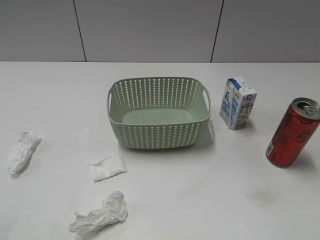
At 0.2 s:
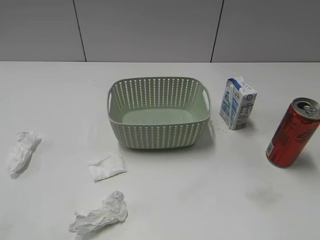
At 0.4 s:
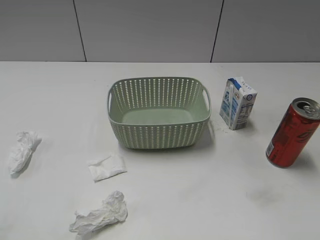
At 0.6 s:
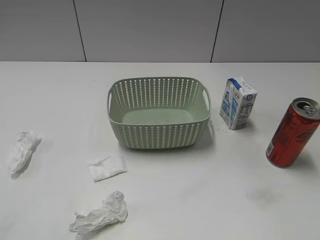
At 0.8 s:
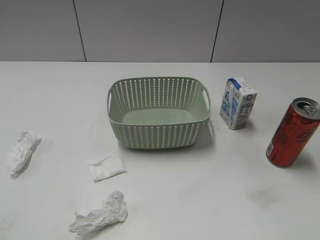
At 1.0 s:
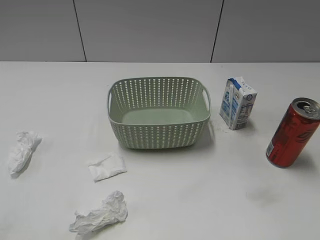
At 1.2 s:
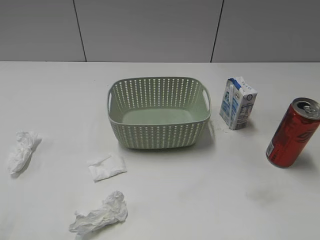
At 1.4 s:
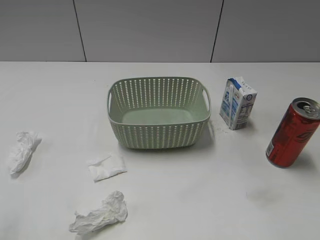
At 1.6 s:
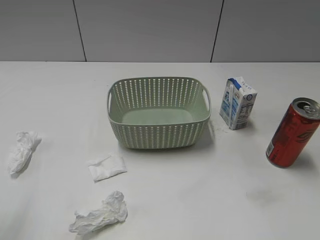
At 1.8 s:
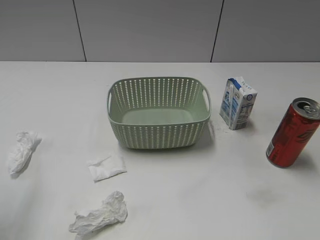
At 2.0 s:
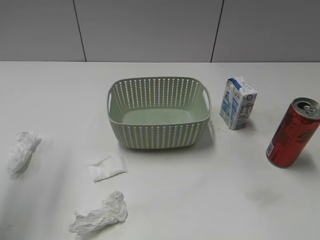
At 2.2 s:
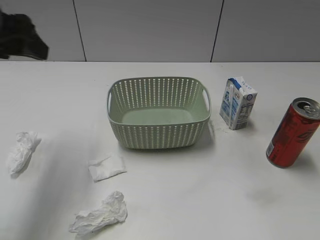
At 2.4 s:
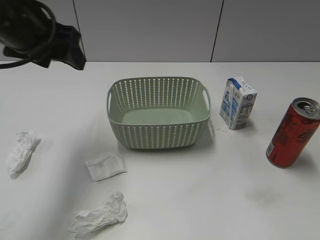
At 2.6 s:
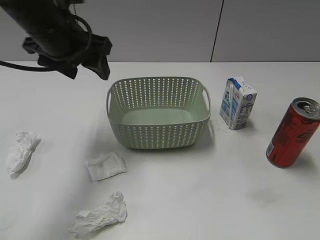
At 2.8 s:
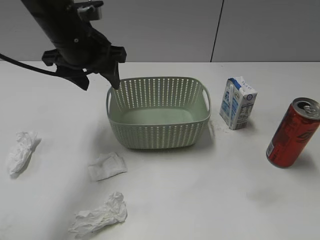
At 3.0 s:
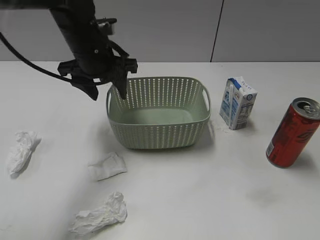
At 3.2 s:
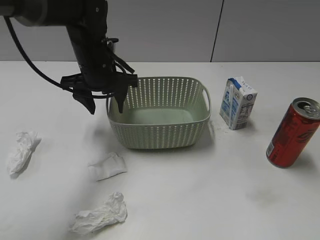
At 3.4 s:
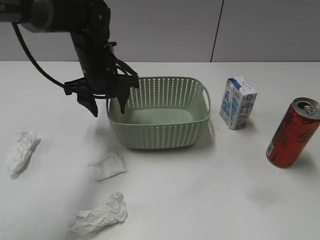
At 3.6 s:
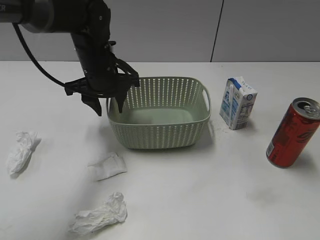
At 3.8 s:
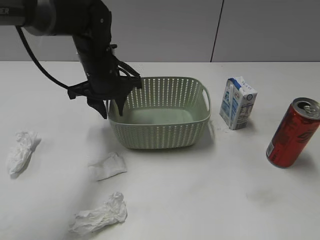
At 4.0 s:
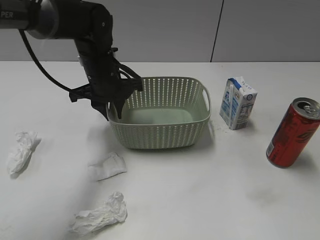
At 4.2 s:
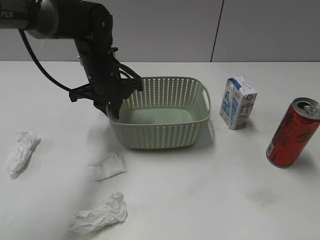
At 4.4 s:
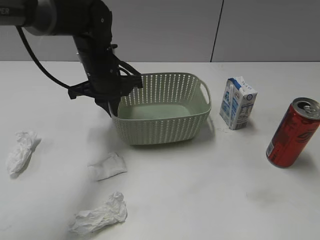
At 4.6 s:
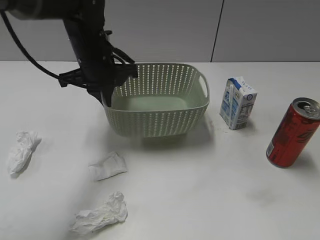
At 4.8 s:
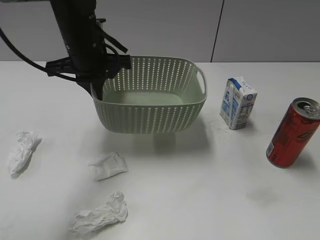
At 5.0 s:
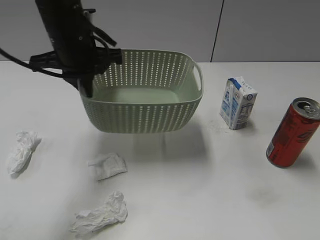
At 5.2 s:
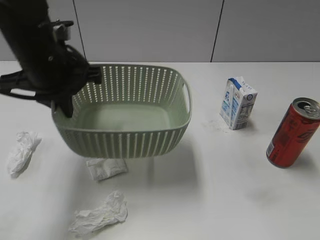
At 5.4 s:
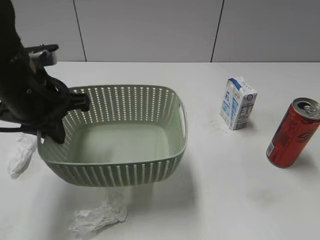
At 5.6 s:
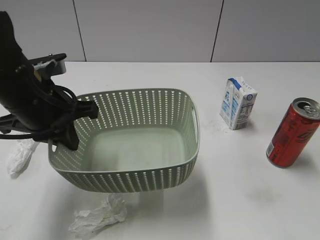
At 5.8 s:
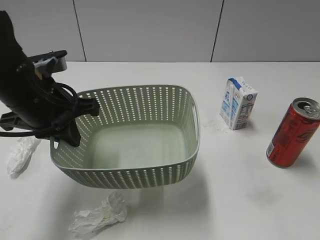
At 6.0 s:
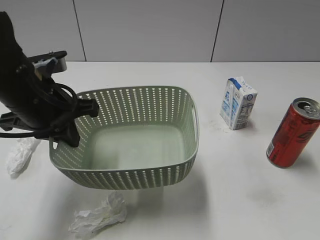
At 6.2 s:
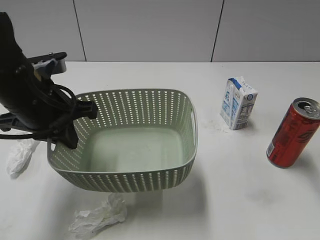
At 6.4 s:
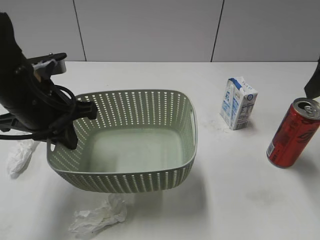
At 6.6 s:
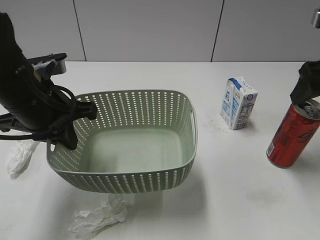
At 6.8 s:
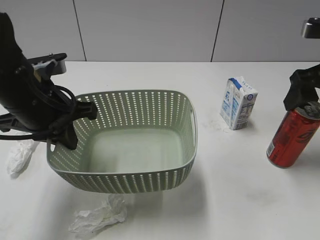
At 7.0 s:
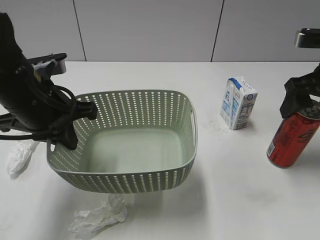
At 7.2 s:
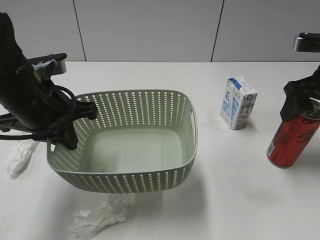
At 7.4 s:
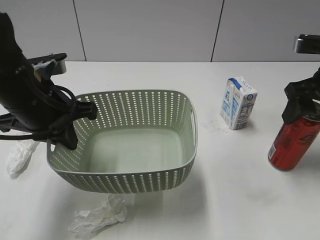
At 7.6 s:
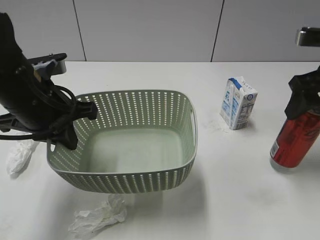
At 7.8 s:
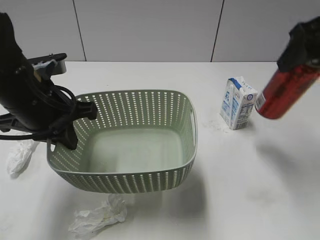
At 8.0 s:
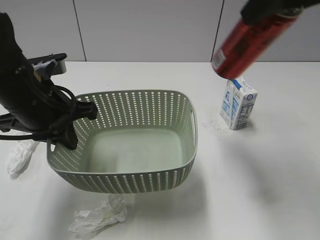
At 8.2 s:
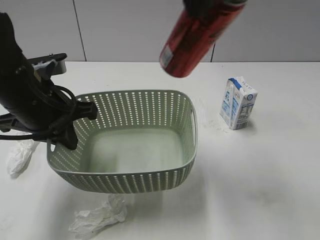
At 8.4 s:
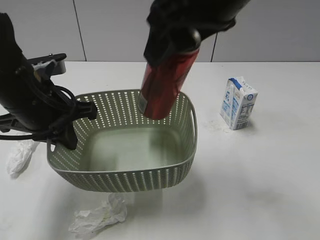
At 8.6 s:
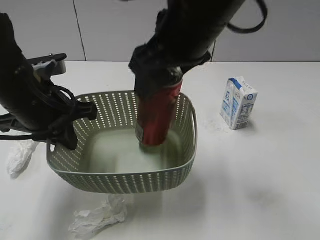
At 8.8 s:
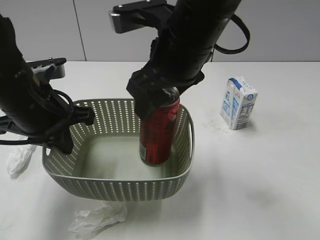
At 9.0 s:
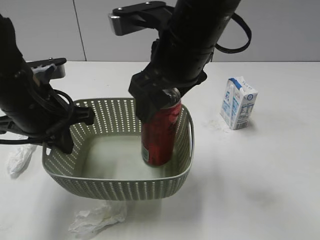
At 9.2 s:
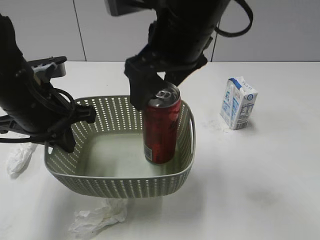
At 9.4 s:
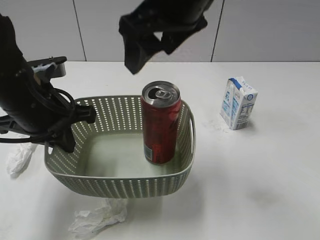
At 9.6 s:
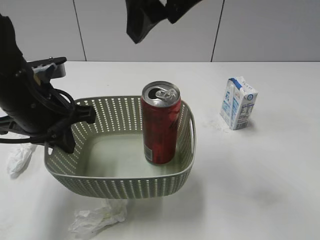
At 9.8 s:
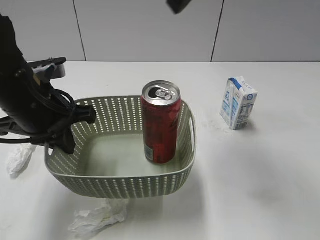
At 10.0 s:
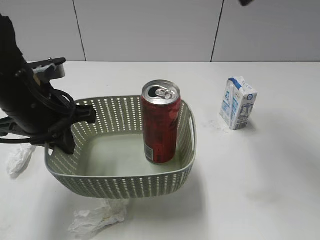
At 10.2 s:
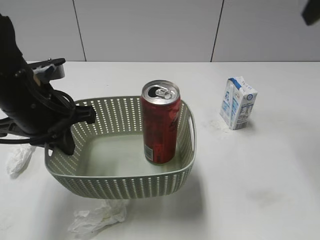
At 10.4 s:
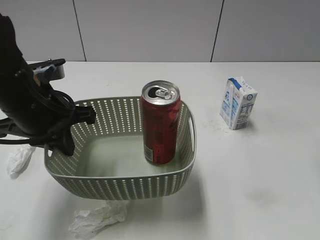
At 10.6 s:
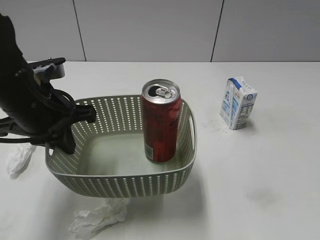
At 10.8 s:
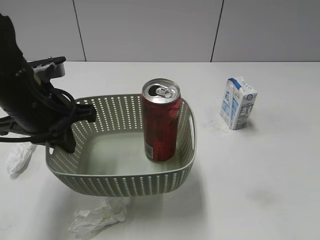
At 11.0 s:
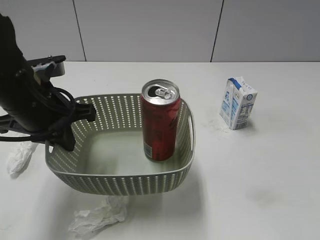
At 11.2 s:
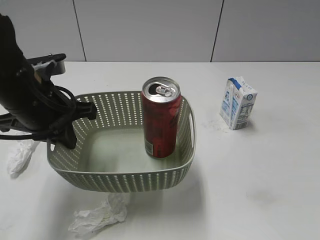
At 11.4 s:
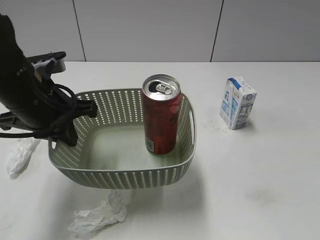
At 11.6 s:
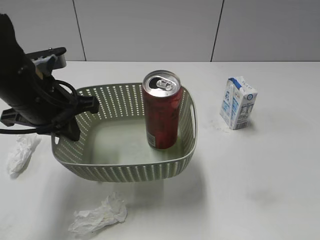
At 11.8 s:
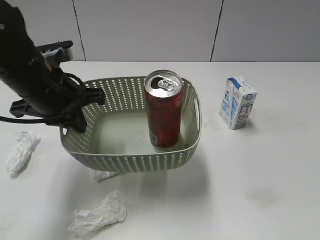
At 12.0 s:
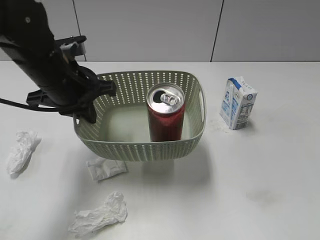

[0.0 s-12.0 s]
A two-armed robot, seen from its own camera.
Step, 2.2 to 4.2 s: Grasp the basket with left gripper.
Step, 4.4 to 6.2 s: Lift the basket with left gripper.
Step, 6.4 to 7.2 s: Grasp the cola can with right gripper.
Step, 7.4 to 9.2 s: Place the cola can in the basket with right gripper.
1.6 to 3.0 s: The left gripper shifts about 35 cm forward and to the right.
3.0 to 4.4 s: The left gripper shifts roughly 5 cm downward, and closes its fingers.
4.4 to 6.0 s: The right gripper shifts some 15 cm forward and upward, and opens its fingers; the left gripper goes approximately 15 cm backward and to the left.
6.0 to 7.6 s: The right gripper moves forward and downward, some 20 cm, and closes its fingers.
7.6 to 9.0 s: The right gripper is displaced to the left by approximately 25 cm.
9.0 to 10.4 s: The right gripper travels to the right by about 25 cm.
10.4 to 12.0 s: The left gripper shifts approximately 5 cm forward. The right gripper heads backward and downward, covering roughly 30 cm, and closes up.

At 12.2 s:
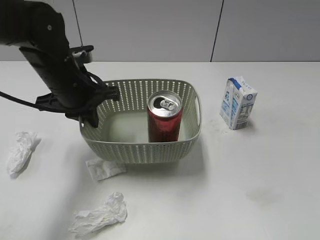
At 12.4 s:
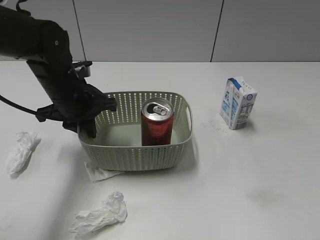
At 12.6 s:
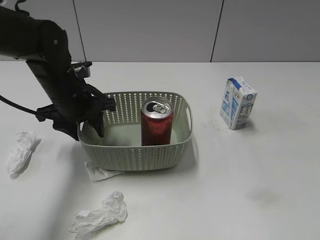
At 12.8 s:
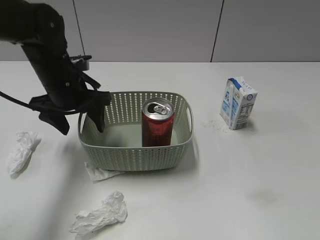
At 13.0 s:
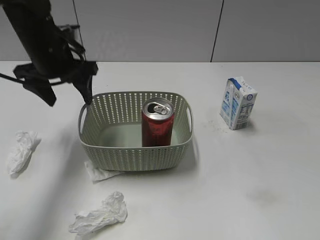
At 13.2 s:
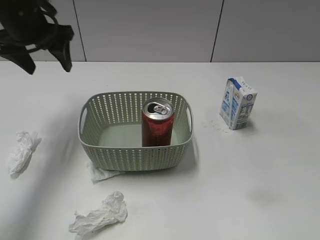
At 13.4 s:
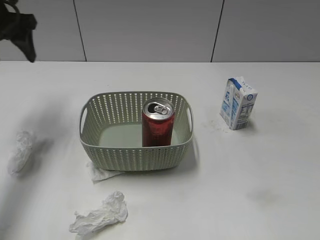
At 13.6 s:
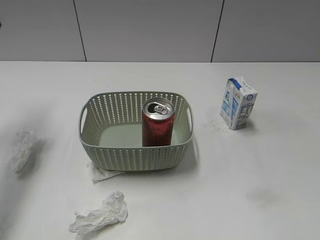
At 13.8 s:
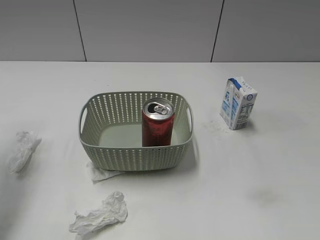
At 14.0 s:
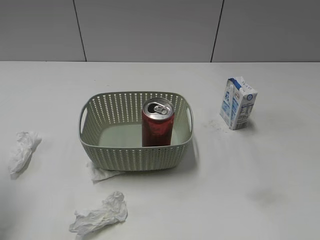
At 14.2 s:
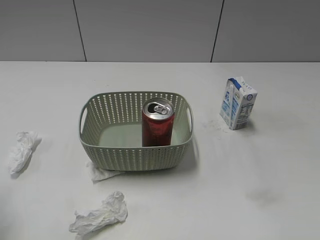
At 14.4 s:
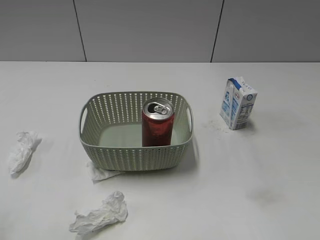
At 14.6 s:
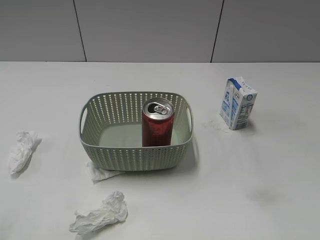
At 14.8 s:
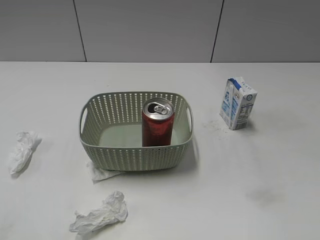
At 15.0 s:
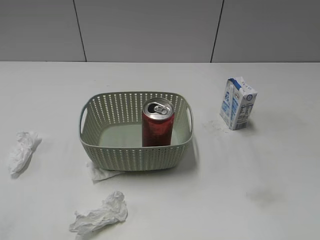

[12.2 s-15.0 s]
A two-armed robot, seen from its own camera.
12.2 to 13.6 s: The left gripper is displaced to the left and upward by approximately 20 cm, and opens.
13.6 to 15.0 s: The left gripper heads backward, covering approximately 35 cm.

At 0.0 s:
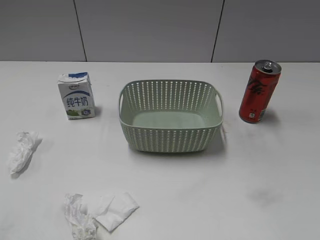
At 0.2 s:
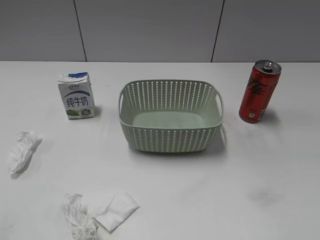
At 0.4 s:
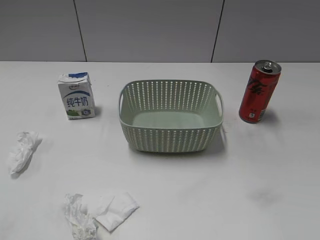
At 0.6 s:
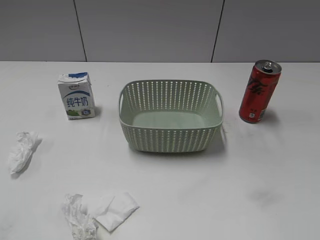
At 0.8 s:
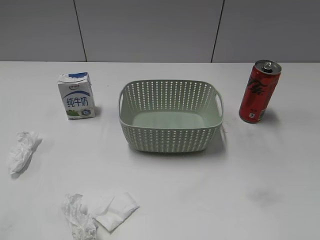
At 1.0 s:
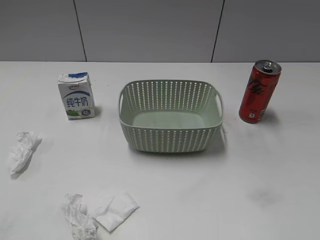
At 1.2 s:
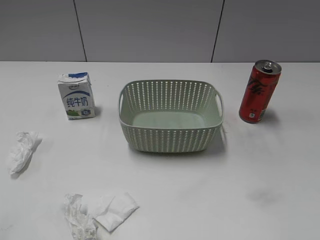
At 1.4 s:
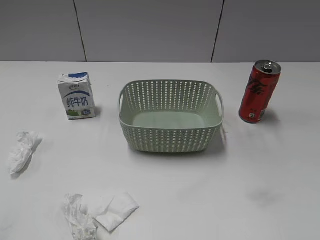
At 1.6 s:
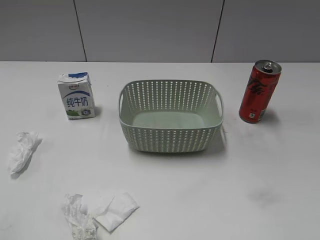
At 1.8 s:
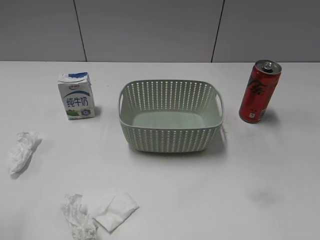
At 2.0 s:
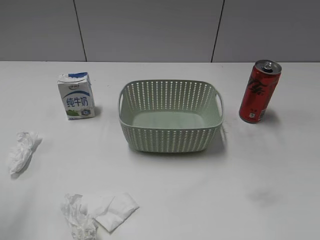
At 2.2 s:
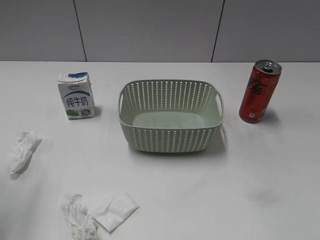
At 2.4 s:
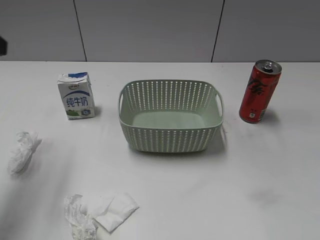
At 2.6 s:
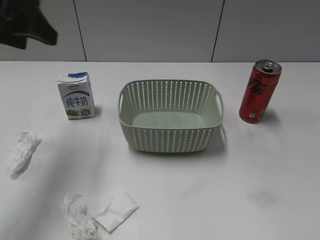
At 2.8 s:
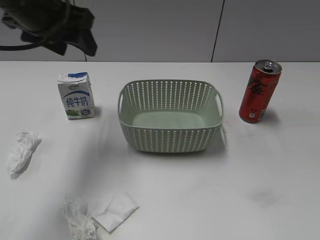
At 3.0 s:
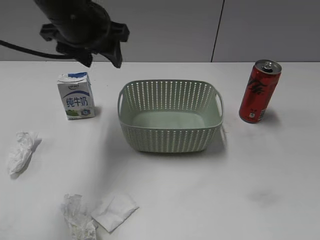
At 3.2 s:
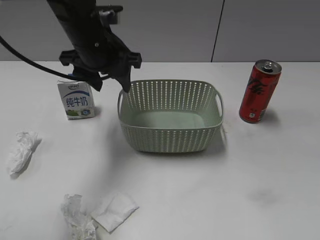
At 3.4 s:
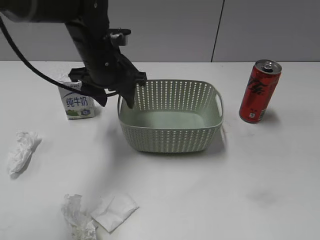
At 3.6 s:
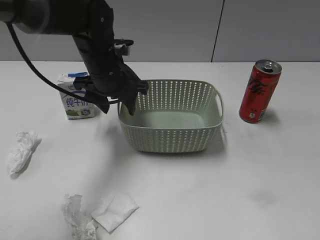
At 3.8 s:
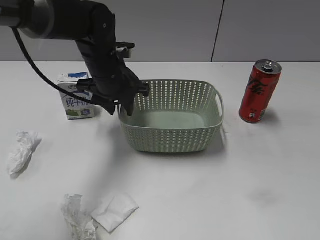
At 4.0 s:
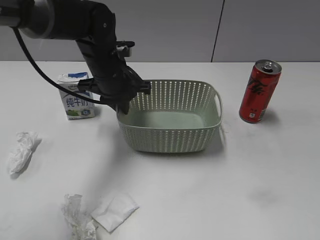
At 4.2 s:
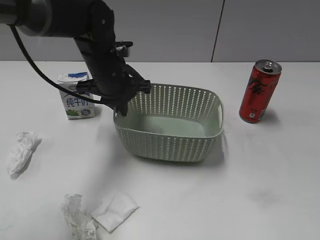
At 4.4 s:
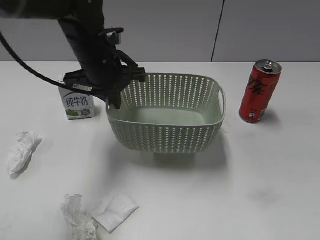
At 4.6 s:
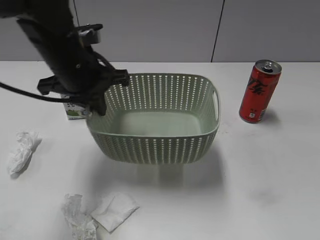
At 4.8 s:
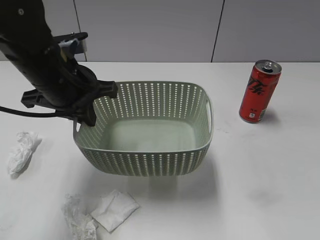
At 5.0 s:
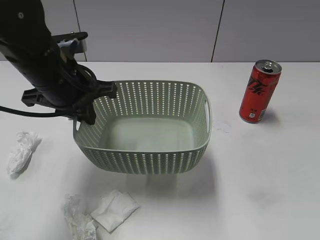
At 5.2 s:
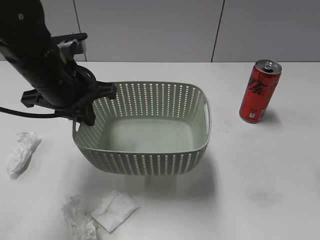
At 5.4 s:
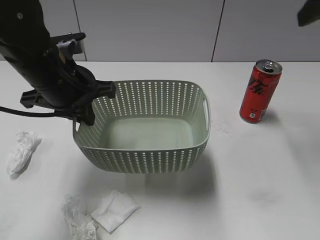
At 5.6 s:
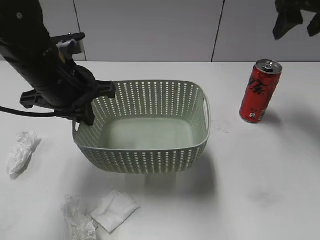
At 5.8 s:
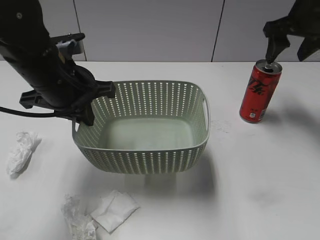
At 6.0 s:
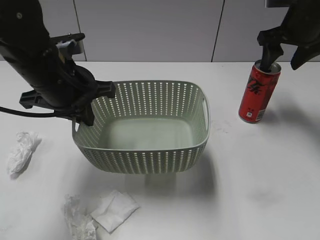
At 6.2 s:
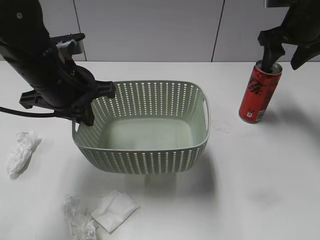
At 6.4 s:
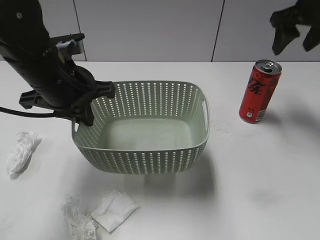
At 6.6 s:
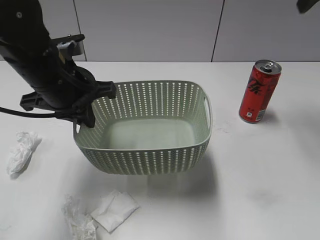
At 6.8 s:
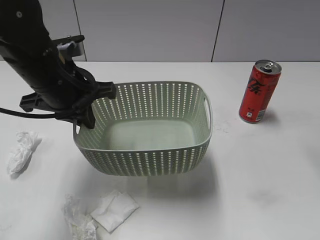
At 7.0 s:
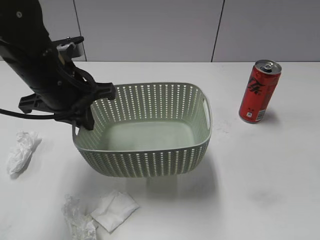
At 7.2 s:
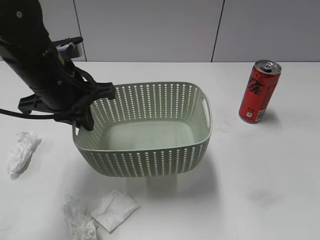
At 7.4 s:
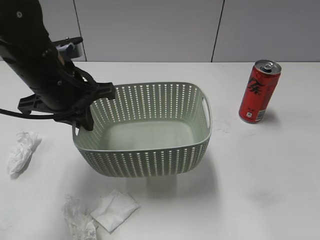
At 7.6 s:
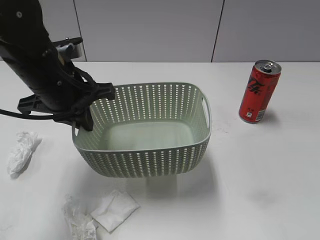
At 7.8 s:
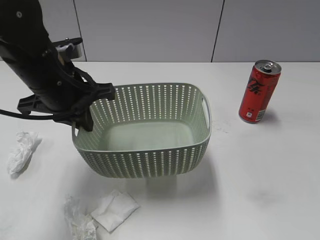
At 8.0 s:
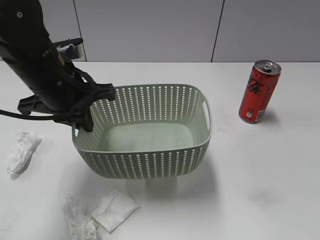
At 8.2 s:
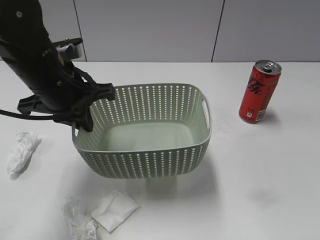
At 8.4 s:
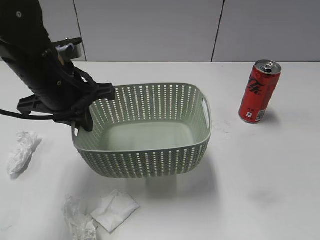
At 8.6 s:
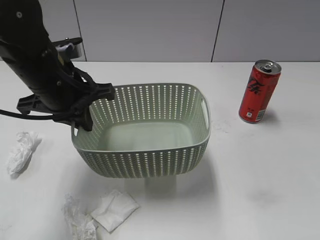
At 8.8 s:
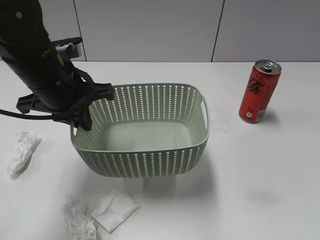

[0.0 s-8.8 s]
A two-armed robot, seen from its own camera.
Step, 2.4 to 4.0 s: Grasp the basket with left gripper.
Step, 4.2 to 5.2 s: Lift the basket with left gripper.
1.4 to 3.0 s: The left gripper moves forward and to the right, approximately 40 cm.
3.0 to 4.4 s: The left gripper heads downward, covering some 5 cm, and closes.
4.4 to 5.8 s: The right gripper goes roughly 40 cm forward, while the left gripper moves backward, about 5 cm.
5.8 to 7.4 s: The right gripper goes some 35 cm backward.
7.4 to 8.8 s: The right gripper heads forward, covering some 5 cm, and opens its fingers.
